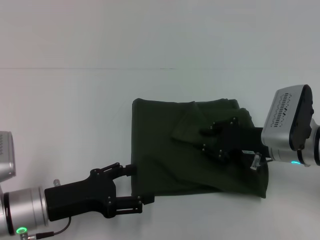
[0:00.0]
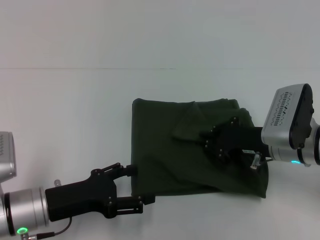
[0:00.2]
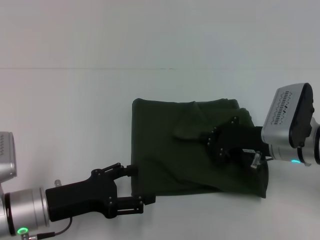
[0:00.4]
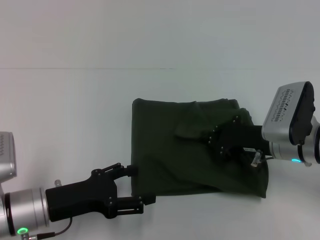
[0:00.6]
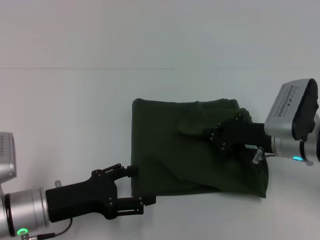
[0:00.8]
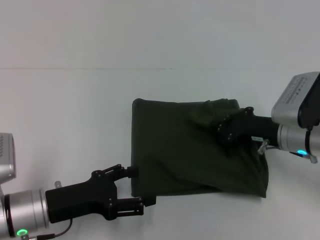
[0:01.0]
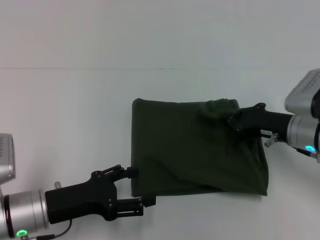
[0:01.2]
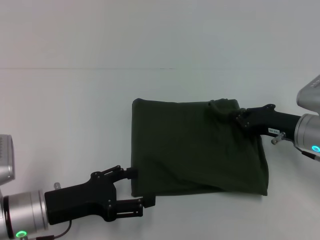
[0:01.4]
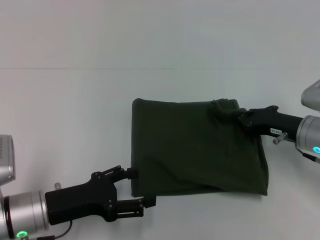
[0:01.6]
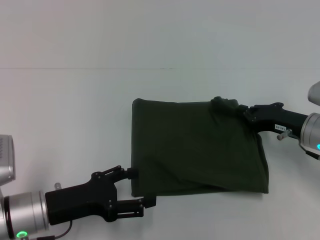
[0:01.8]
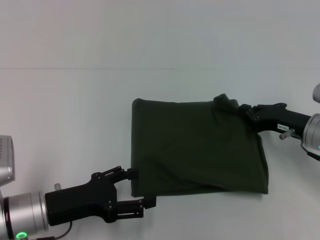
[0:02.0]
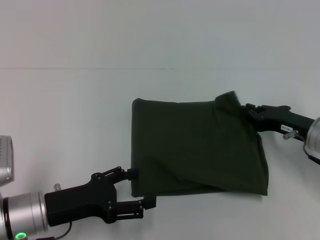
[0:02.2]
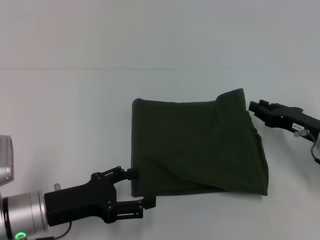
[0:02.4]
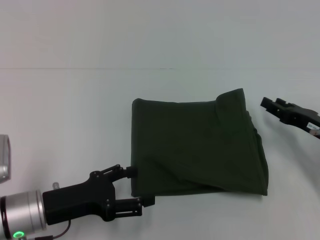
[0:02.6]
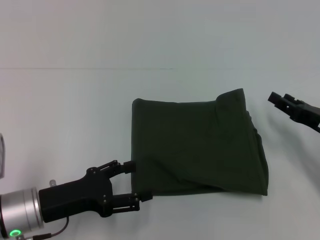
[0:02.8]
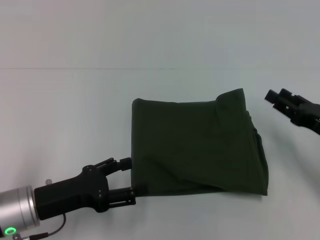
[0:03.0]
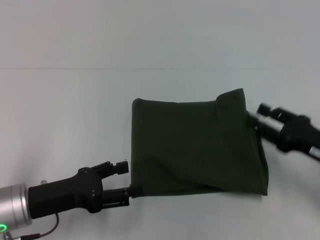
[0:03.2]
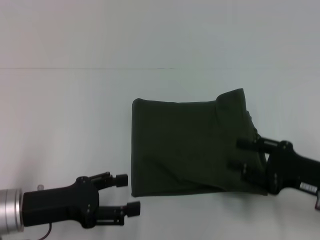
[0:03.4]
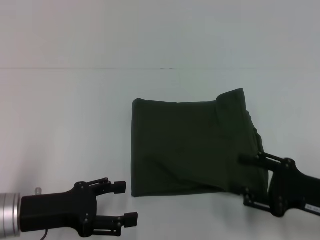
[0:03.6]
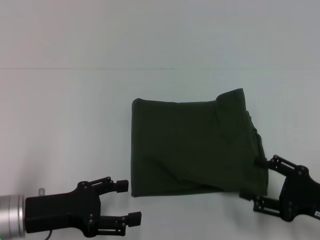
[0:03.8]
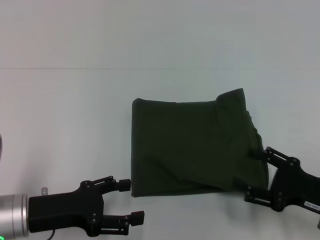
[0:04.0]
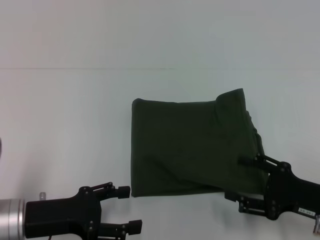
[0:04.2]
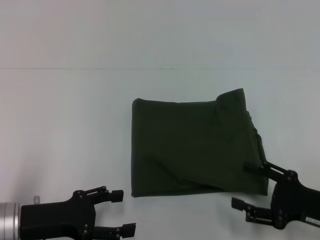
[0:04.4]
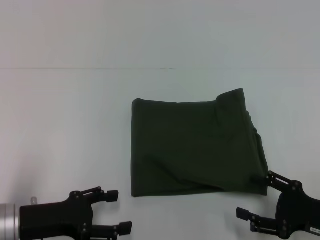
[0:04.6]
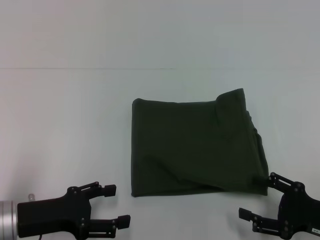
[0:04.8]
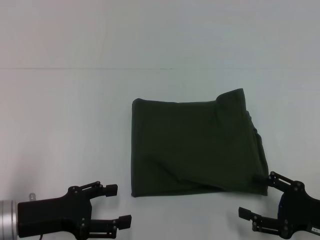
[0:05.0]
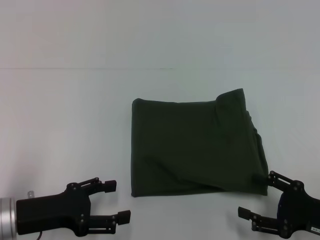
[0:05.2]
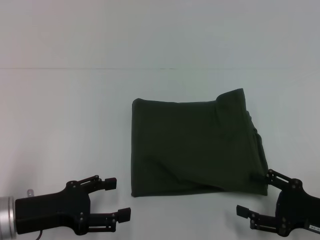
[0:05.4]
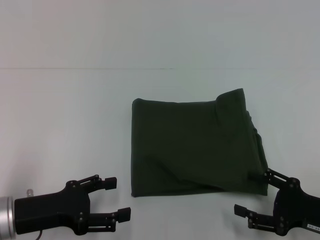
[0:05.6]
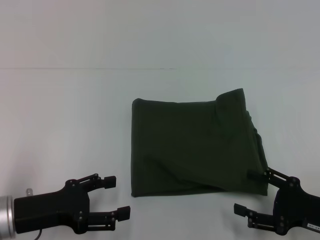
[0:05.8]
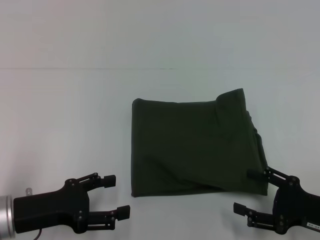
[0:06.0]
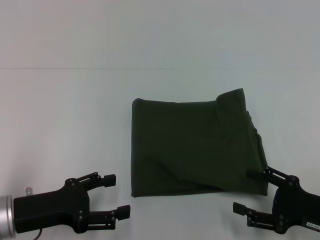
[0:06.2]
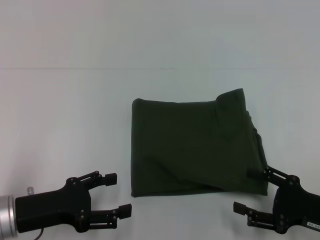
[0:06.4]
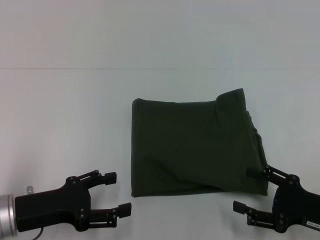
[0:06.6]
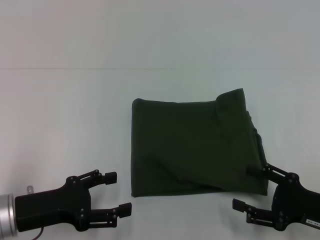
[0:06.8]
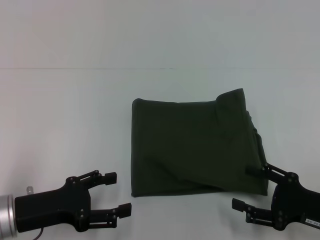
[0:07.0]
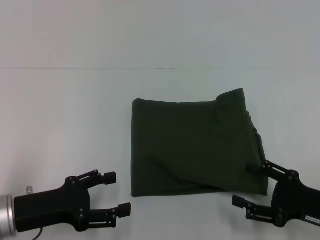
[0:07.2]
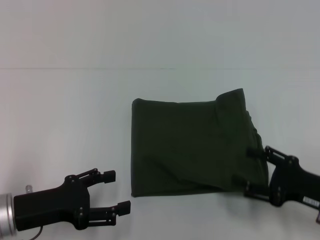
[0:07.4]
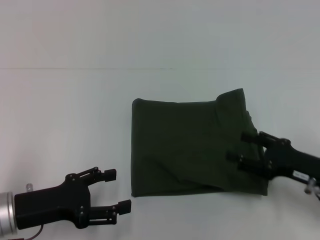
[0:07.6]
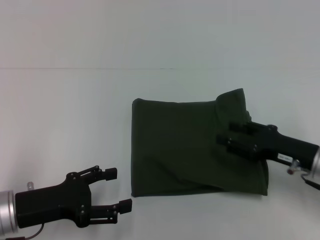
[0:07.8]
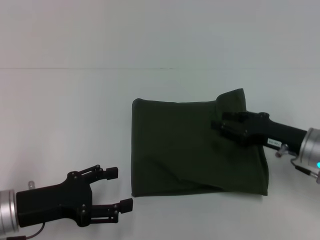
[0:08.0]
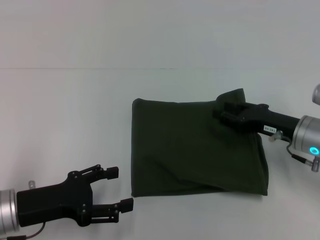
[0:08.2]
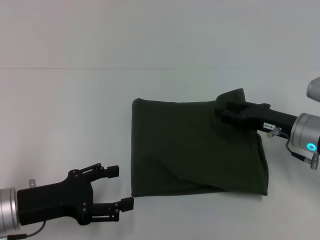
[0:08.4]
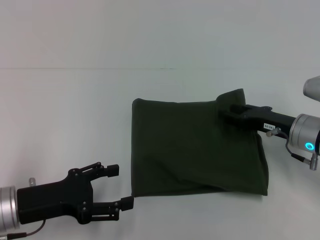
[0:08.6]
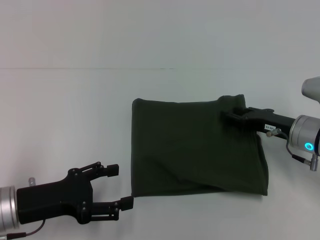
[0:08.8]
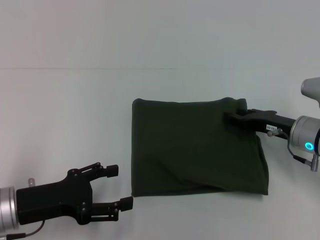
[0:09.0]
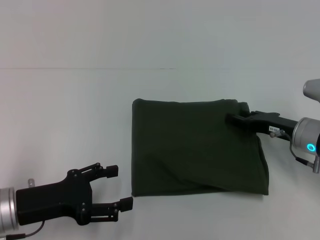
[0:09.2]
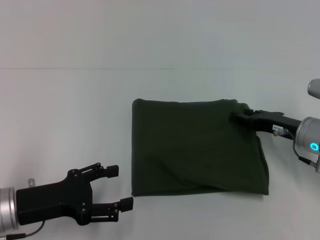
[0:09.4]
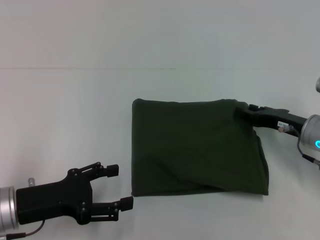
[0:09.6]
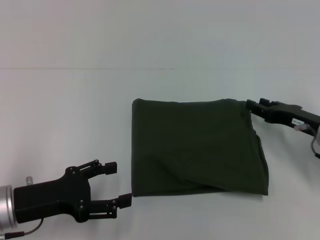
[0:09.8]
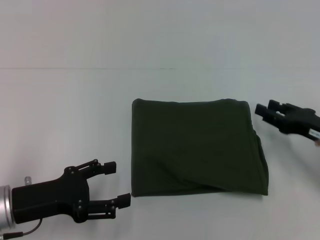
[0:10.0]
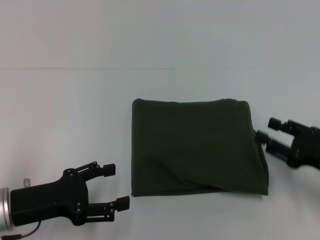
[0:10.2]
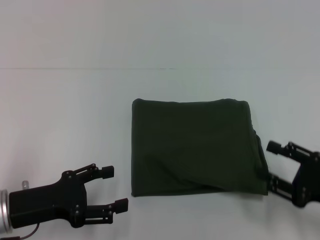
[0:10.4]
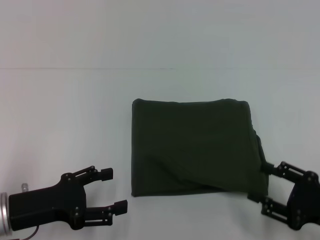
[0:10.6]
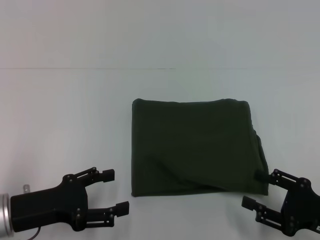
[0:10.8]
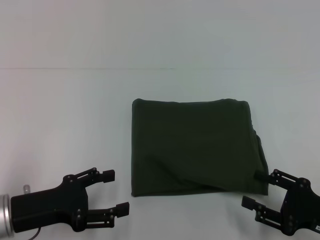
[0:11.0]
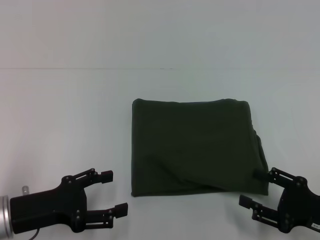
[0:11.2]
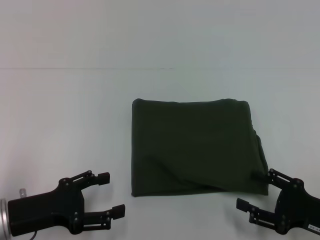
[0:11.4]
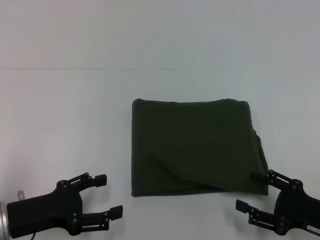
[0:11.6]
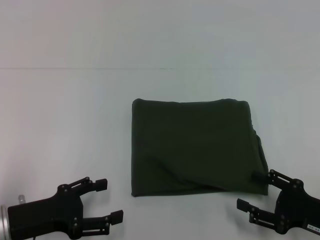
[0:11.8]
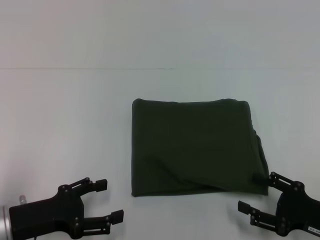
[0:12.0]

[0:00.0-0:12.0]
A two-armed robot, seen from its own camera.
0:00.0 to 0:01.6: The right gripper closes up.
0:01.6 to 0:03.0: The right gripper shifts approximately 10 cm backward and to the right, and opens its fingers.
0:03.0 to 0:04.4: The right gripper heads backward, covering roughly 10 cm.
0:04.4 to 0:06.0: The grippers move only a little.
0:06.0 to 0:07.6: The right gripper travels forward by about 5 cm.
0:07.6 to 0:09.0: The right gripper is displaced forward by some 10 cm, and closes up.
0:09.0 to 0:10.4: The right gripper is displaced backward and to the right by about 15 cm.
0:10.4 to 0:12.0: The grippers stay close to where they were, moving slightly.

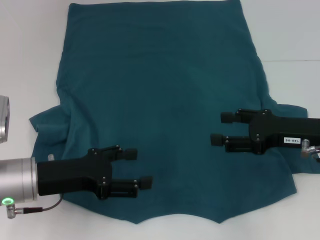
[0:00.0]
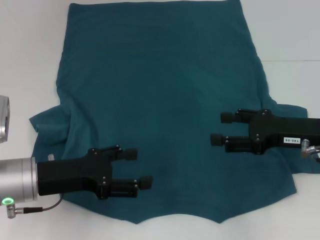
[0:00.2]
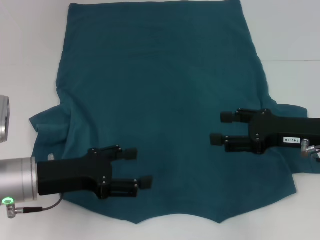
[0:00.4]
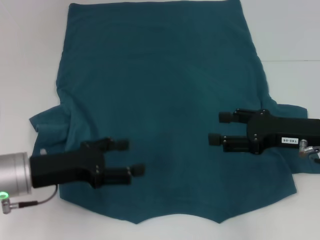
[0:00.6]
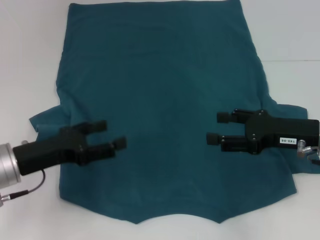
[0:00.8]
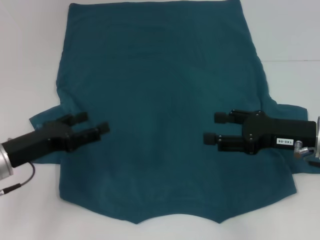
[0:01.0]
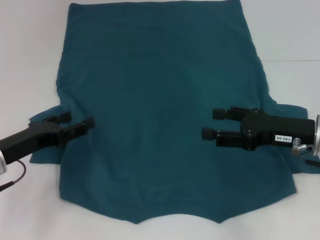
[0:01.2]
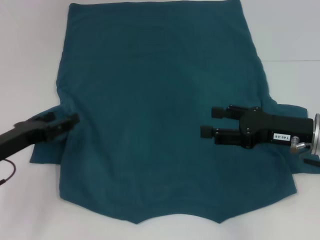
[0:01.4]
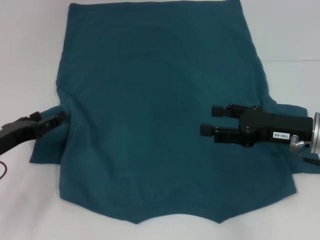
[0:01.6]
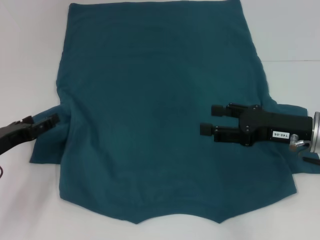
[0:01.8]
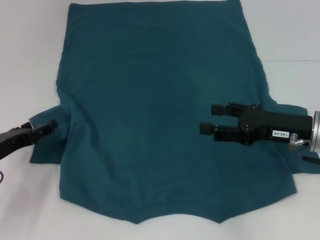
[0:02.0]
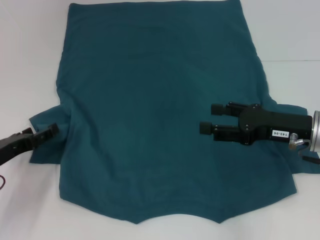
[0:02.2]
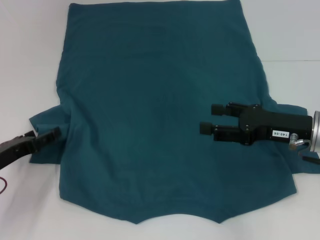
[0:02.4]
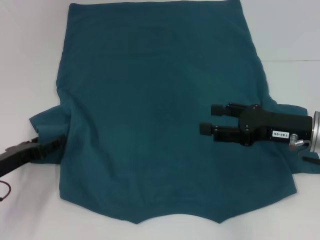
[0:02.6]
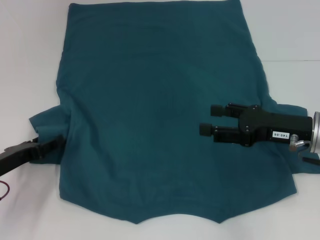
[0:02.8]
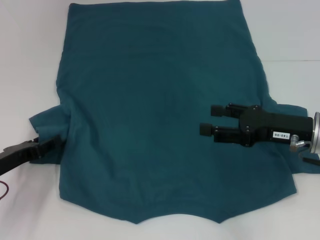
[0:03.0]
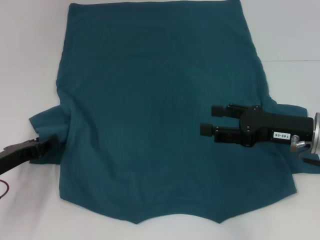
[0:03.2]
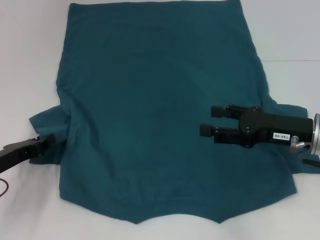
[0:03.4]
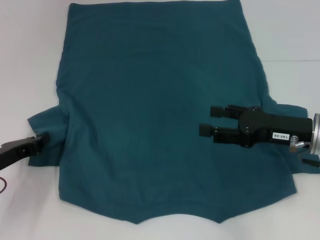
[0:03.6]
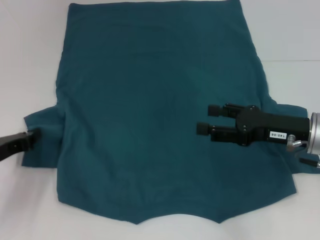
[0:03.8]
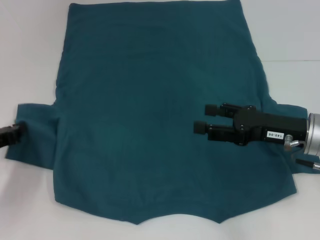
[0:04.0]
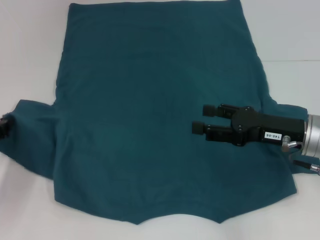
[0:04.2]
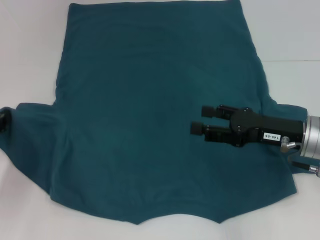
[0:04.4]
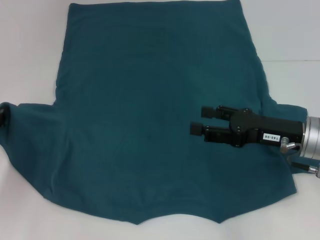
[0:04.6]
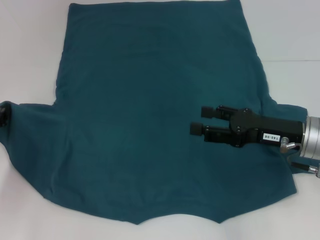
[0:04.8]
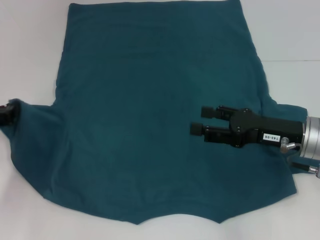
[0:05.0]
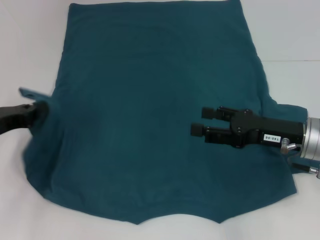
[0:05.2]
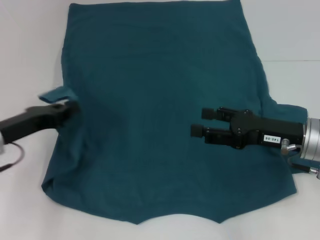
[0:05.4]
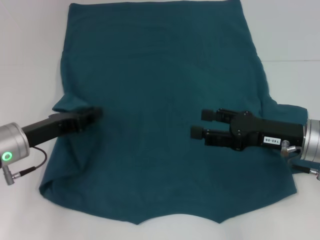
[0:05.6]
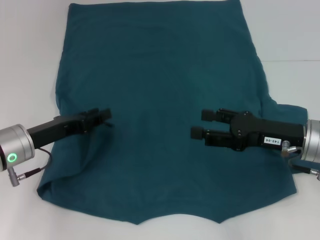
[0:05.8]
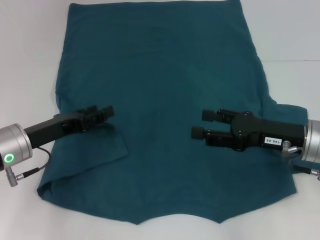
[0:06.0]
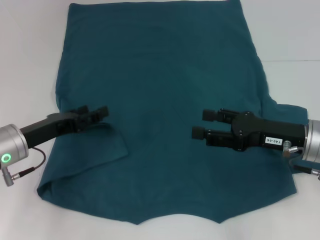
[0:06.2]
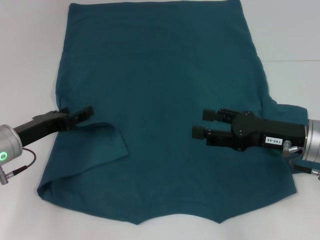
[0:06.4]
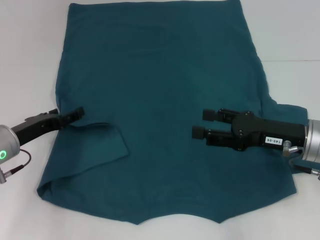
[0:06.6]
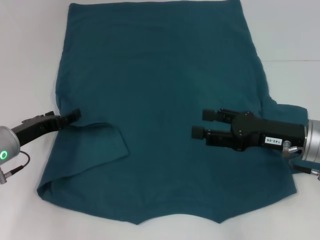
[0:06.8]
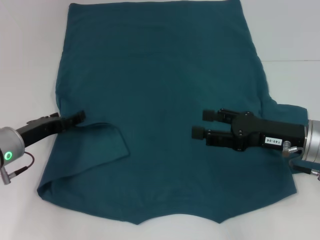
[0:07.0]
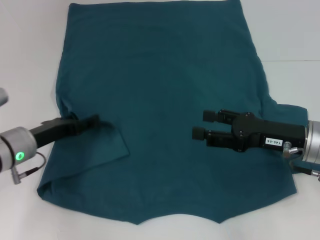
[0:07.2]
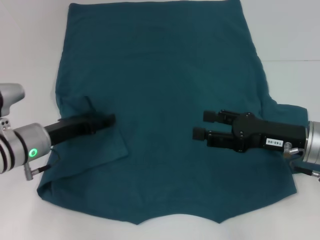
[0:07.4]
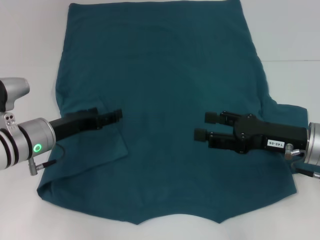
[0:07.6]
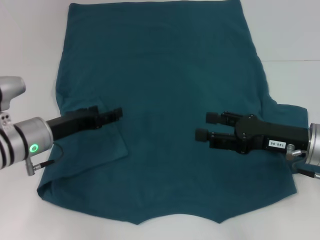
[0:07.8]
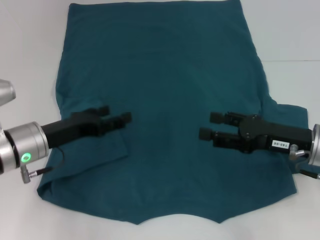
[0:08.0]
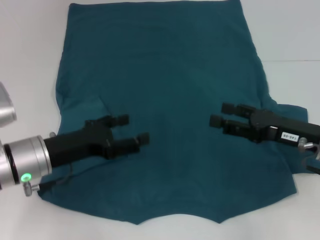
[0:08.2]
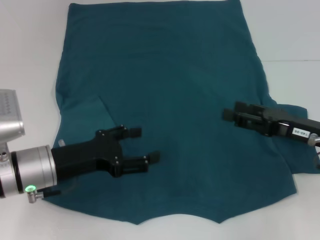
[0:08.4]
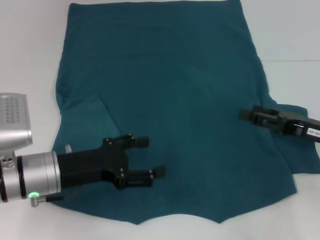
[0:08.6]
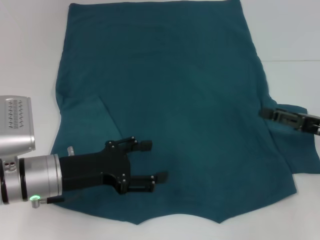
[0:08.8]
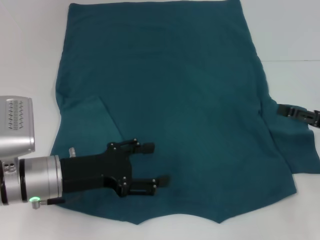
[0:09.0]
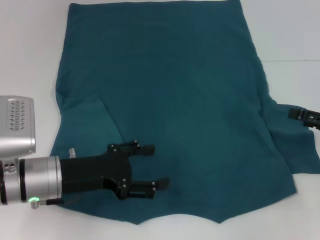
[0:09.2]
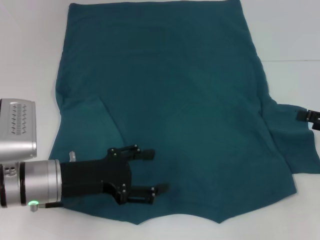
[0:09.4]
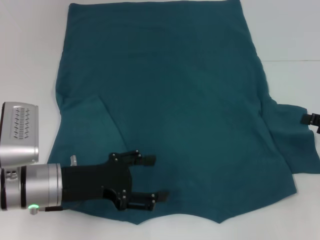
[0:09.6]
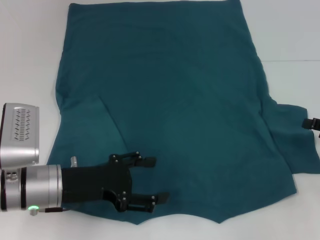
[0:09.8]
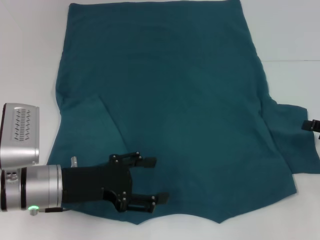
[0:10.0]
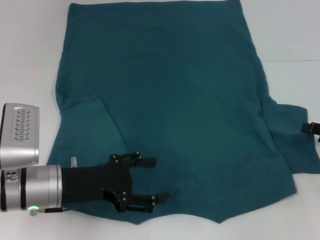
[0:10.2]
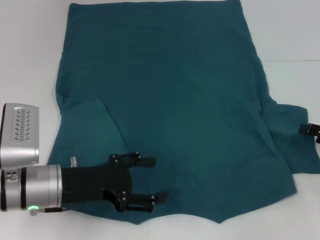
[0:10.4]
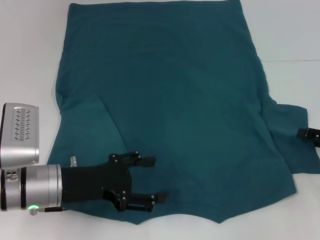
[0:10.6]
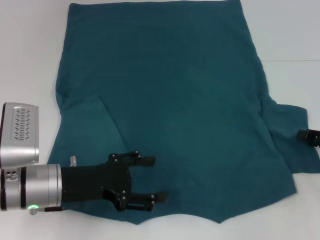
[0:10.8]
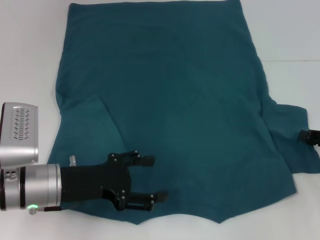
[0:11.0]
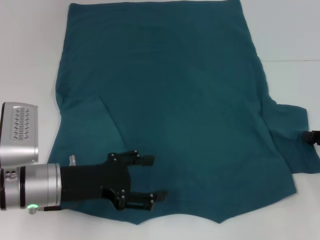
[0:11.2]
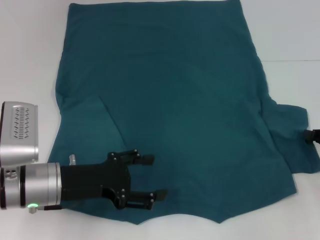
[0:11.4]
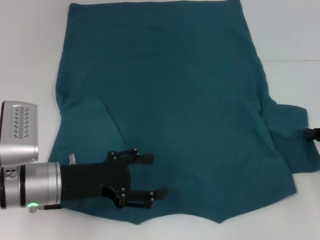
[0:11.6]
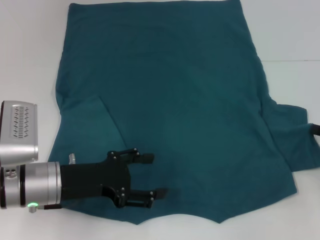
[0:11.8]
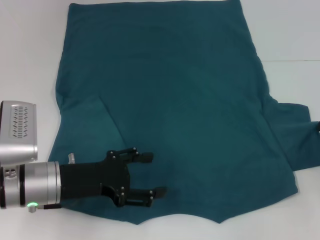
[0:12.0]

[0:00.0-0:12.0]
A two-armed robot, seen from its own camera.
Step, 0:00.0 to 0:07.6: Fold the bottom left sleeve with your left hand.
0:00.0 to 0:01.6: The left gripper is displaced to the left by about 10 cm.
0:01.6 to 0:03.0: The grippers move only a little.
0:03.0 to 0:04.4: The left gripper moves approximately 5 cm, and closes its fingers.
0:04.4 to 0:06.0: The left gripper is displaced to the right by approximately 10 cm, and opens.
0:06.0 to 0:07.6: The left gripper opens up.
0:07.6 to 0:09.0: The left gripper is displaced backward by about 5 cm, while the right gripper moves to the right, some 10 cm.
0:09.0 to 0:10.4: The grippers make only small movements.
0:10.4 to 0:12.0: The right gripper closes its fingers.
